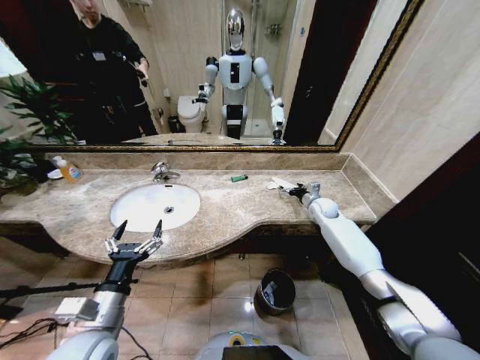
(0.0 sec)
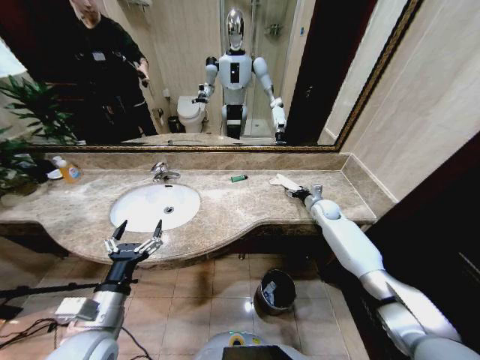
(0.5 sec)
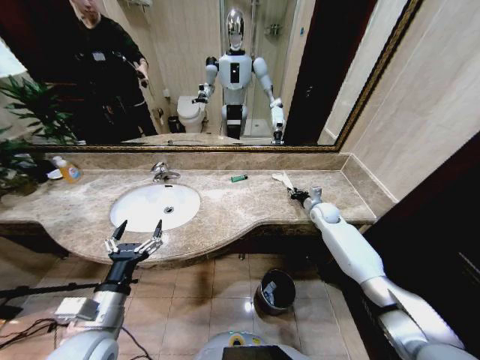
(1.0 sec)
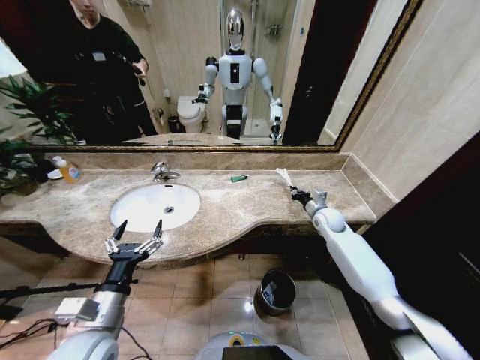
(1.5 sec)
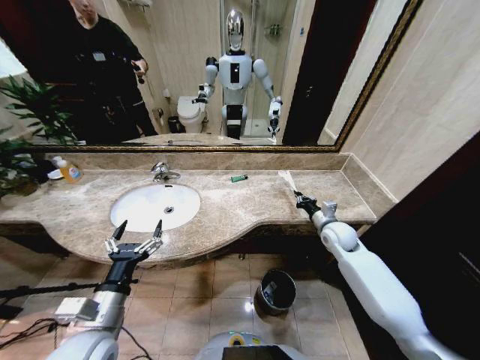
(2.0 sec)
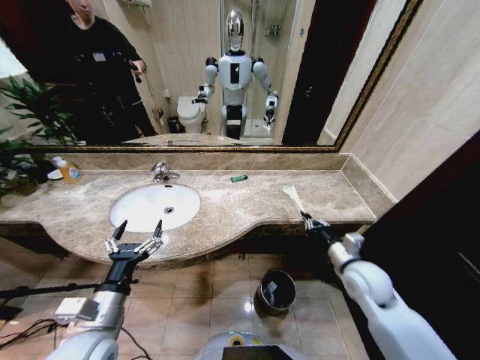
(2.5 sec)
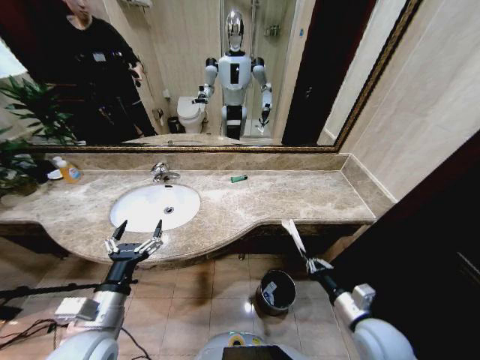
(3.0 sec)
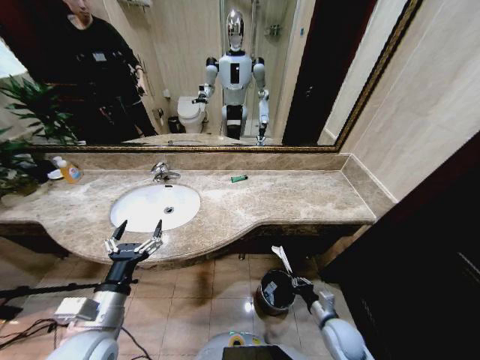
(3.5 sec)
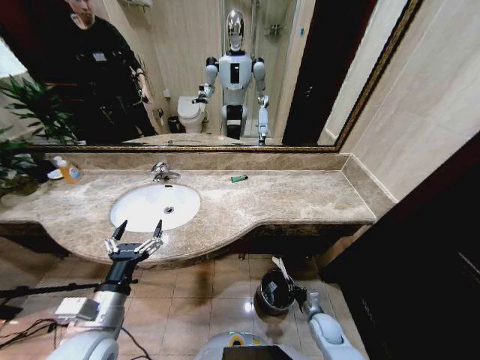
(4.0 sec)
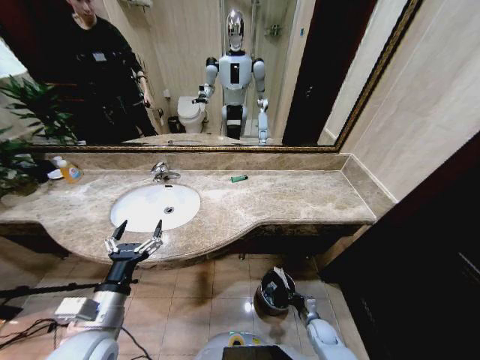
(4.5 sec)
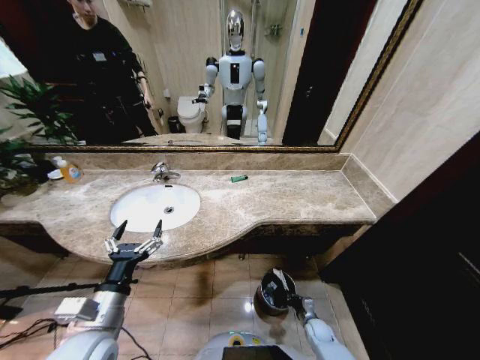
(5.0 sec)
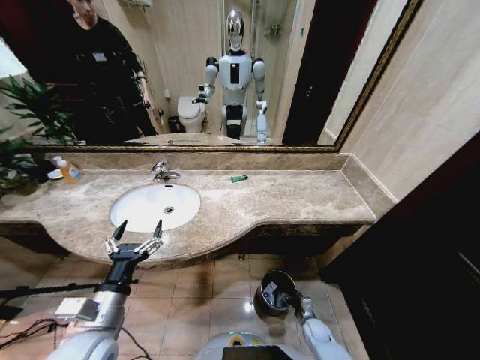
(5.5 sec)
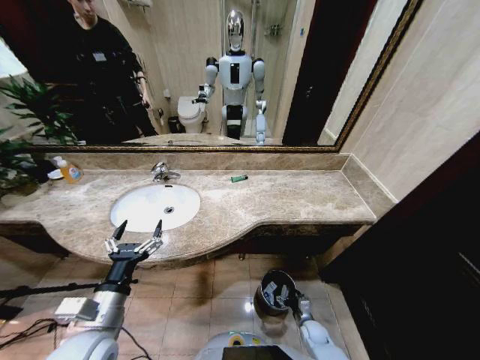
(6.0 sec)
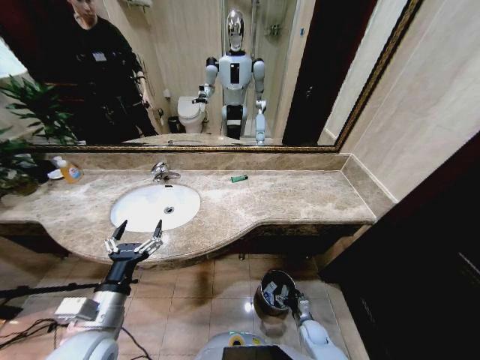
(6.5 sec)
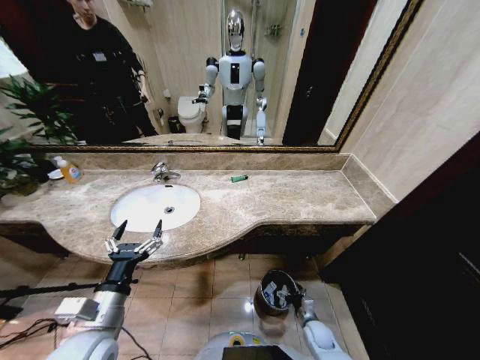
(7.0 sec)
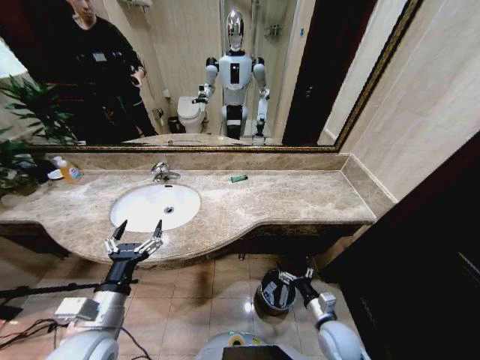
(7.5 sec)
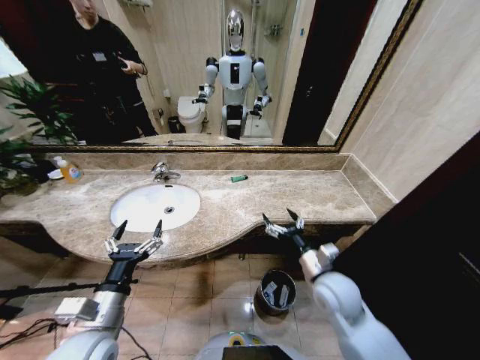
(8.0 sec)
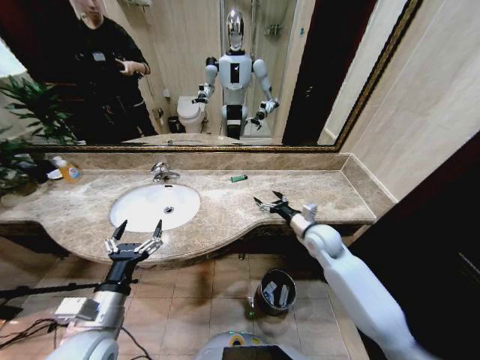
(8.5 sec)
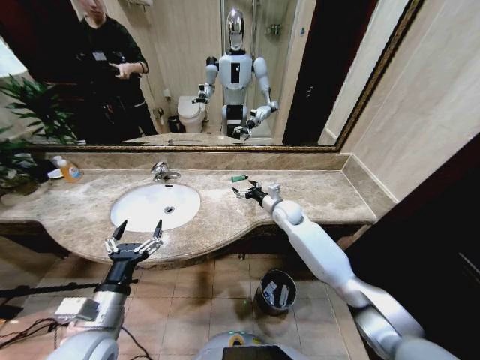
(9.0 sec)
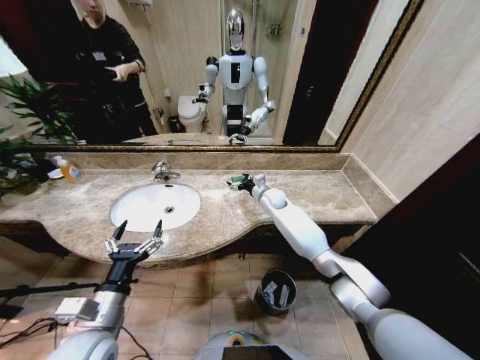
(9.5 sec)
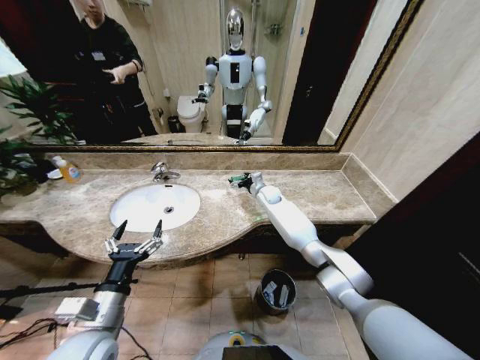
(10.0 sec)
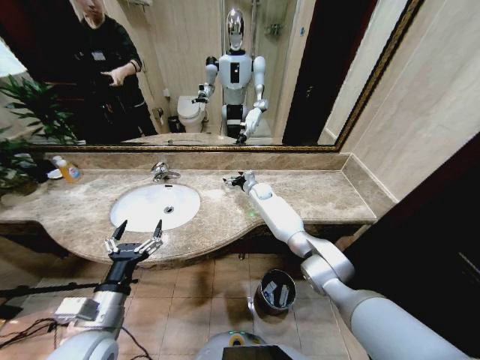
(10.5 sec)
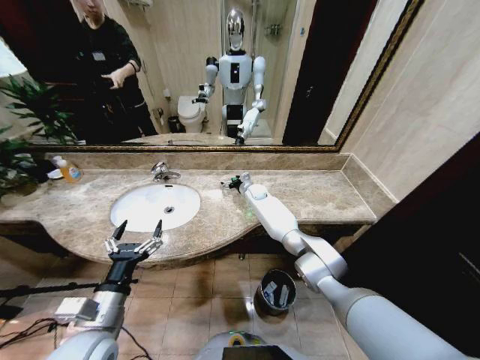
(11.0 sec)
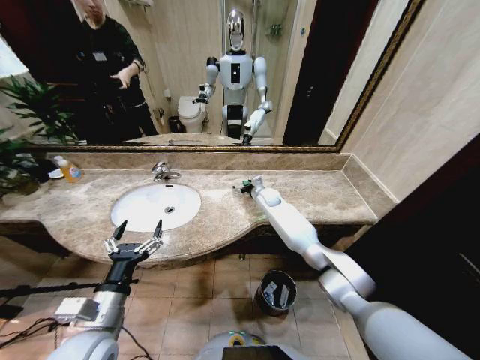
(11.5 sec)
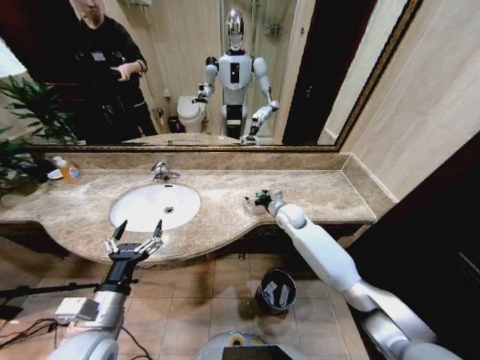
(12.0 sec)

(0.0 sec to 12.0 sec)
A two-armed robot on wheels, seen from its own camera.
Task of the whole recording: Pick up the trash from the sink and place it in the trash bin.
0.0 sec - 2.0 sec: The right gripper shifts roughly 15 cm backward, and closes its fingers.
2.0 sec - 4.0 sec: The right gripper heads downward and backward, covering approximately 35 cm.
4.0 sec - 6.0 sec: The right gripper moves downward, some 10 cm, and opens.
6.0 sec - 8.0 sec: The right gripper goes some 35 cm upward.
8.0 sec - 10.0 sec: The right gripper moves forward, roughly 35 cm.
10.0 sec - 12.0 sec: The right gripper heads backward and to the right, covering about 15 cm.

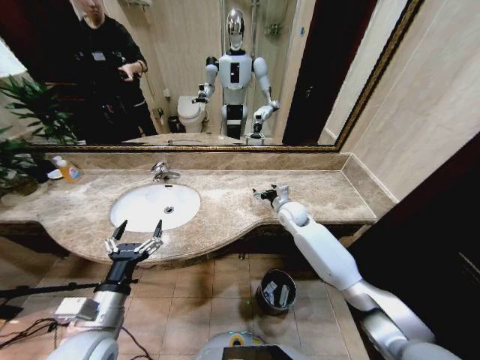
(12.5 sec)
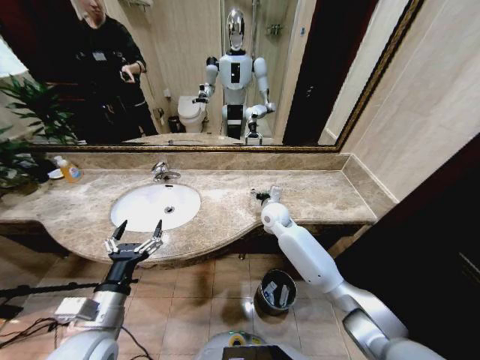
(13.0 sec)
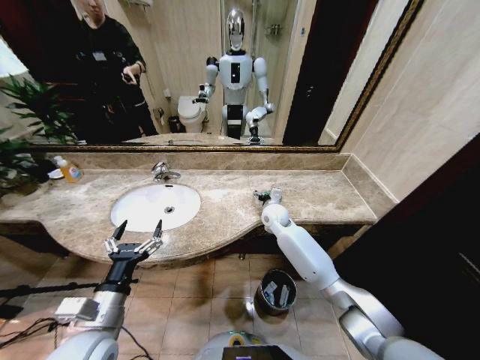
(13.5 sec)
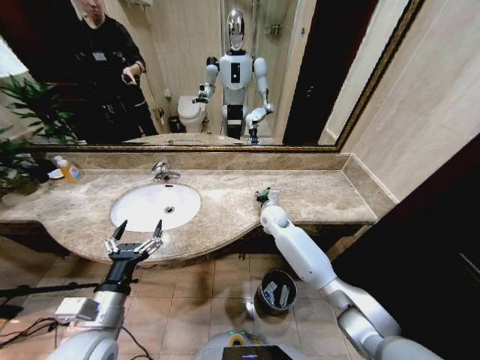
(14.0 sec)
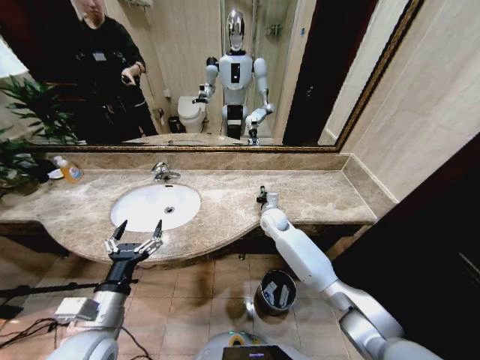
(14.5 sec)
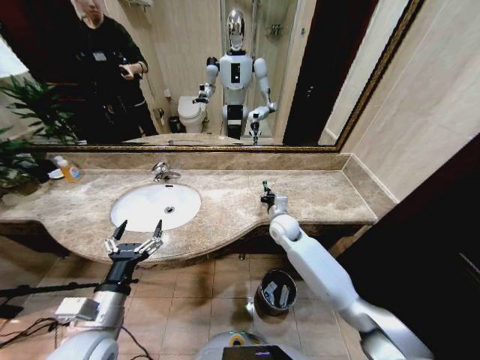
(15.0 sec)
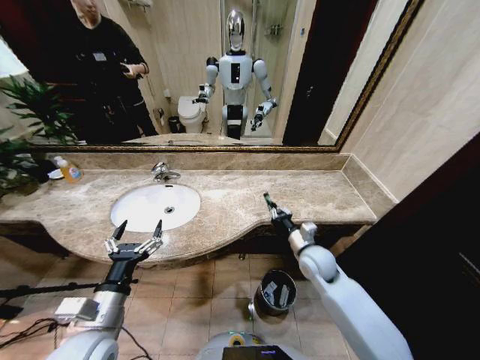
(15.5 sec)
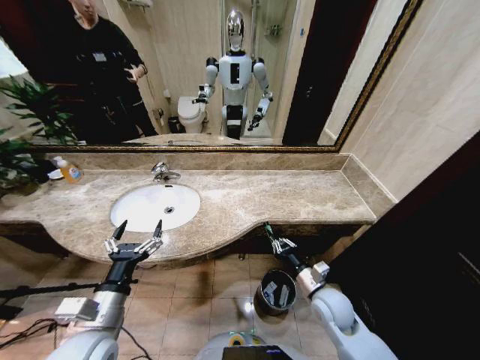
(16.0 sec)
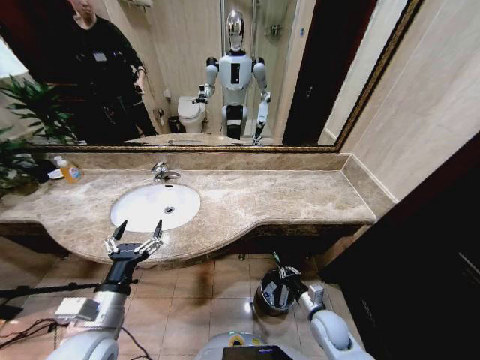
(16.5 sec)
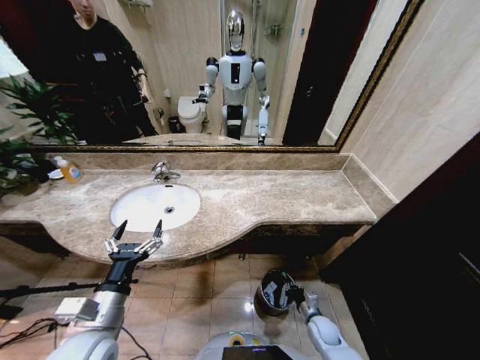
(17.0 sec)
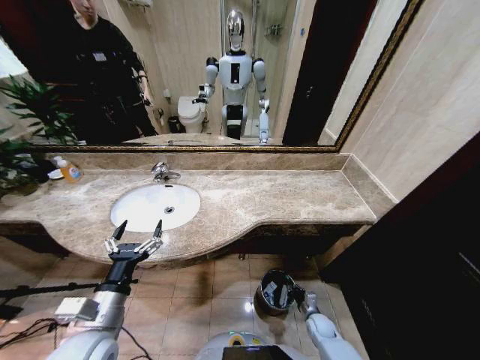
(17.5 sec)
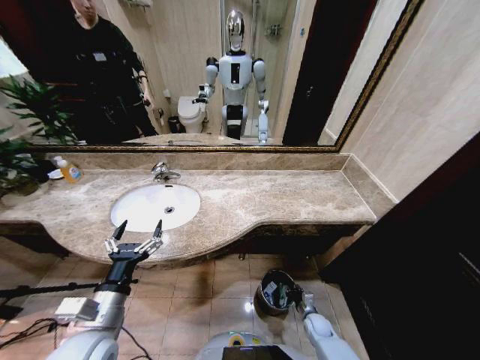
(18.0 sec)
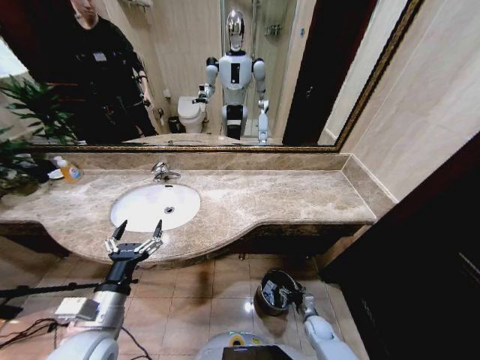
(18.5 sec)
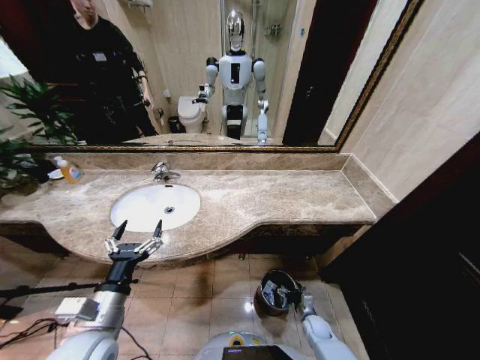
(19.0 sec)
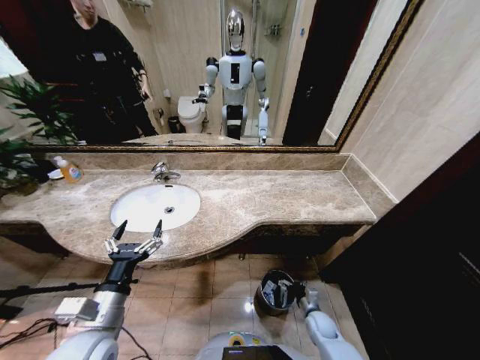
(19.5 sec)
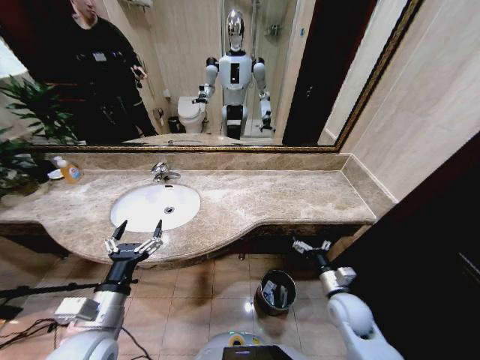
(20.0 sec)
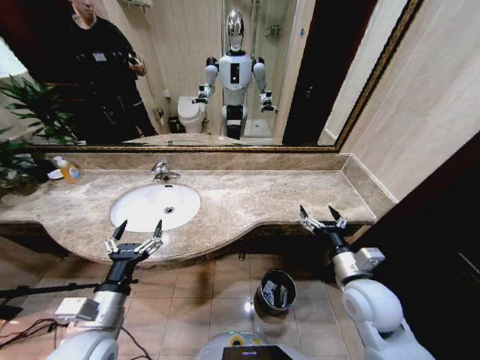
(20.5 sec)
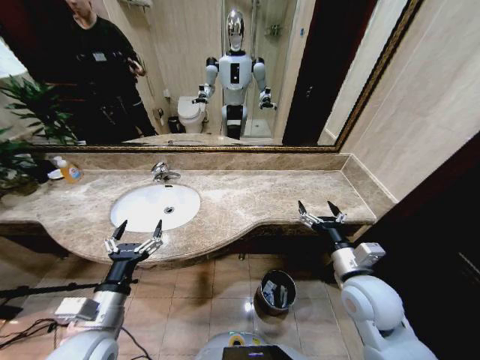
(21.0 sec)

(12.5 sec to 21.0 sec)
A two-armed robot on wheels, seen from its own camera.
Task of the whole recording: Pick up the trash from the sink and place it in the trash bin.
12.5 sec - 14.5 sec: The right gripper is displaced to the left by about 5 cm, and closes its fingers.
14.5 sec - 16.5 sec: The right gripper is displaced backward, downward and to the right by some 35 cm.
16.5 sec - 19.0 sec: The right gripper moves downward, roughly 15 cm, and opens its fingers.
19.0 sec - 21.0 sec: The right gripper goes roughly 40 cm upward.
